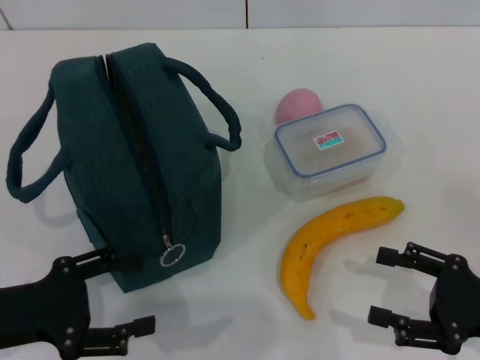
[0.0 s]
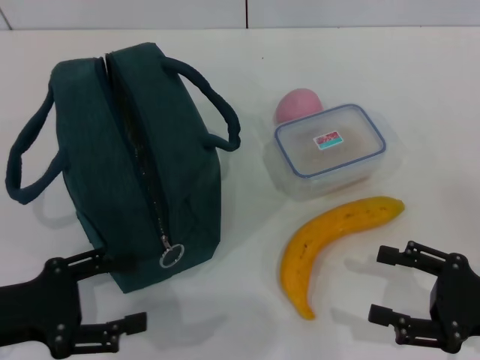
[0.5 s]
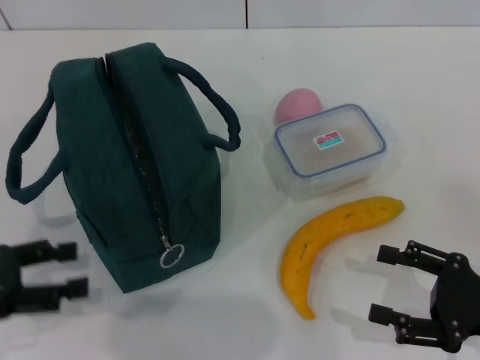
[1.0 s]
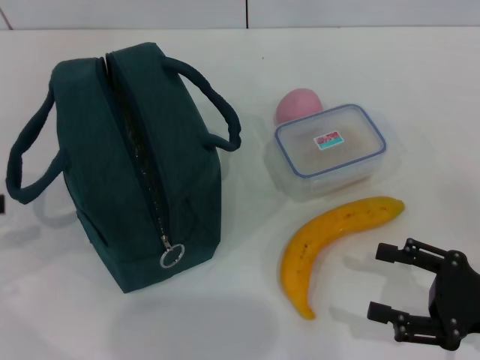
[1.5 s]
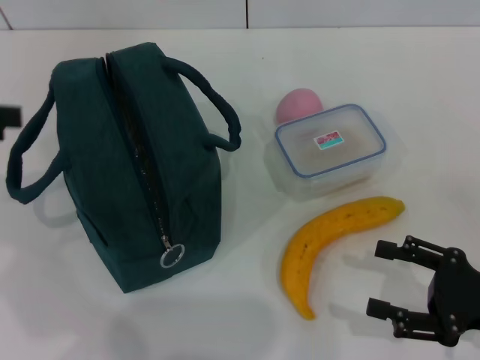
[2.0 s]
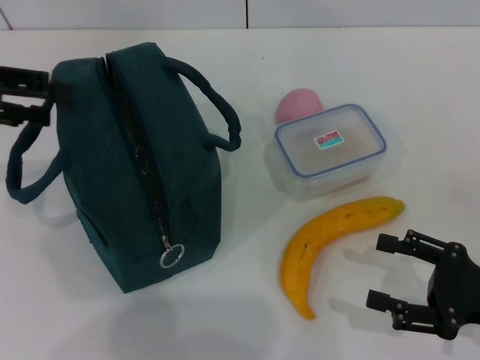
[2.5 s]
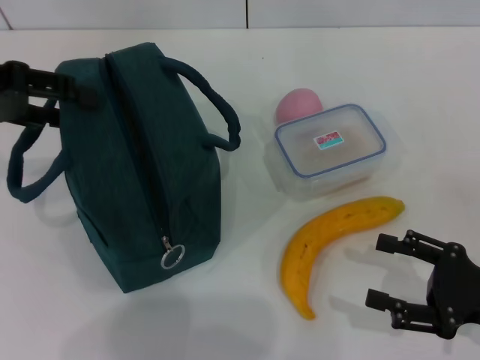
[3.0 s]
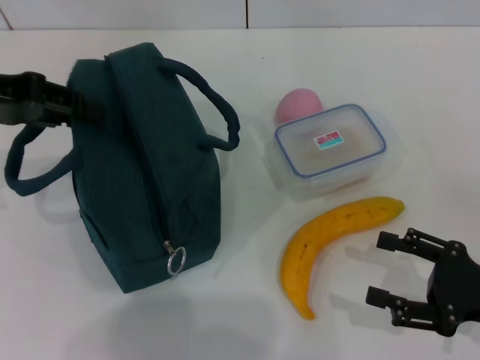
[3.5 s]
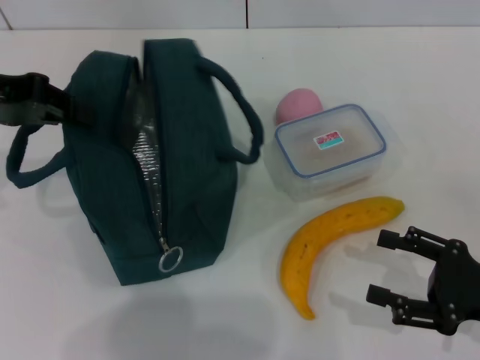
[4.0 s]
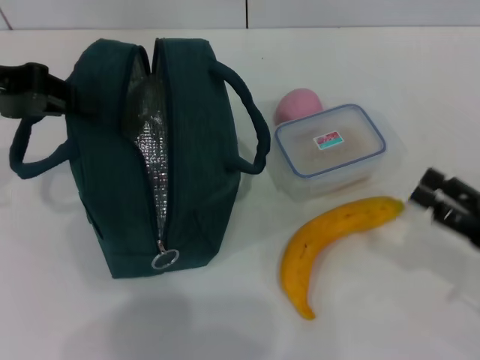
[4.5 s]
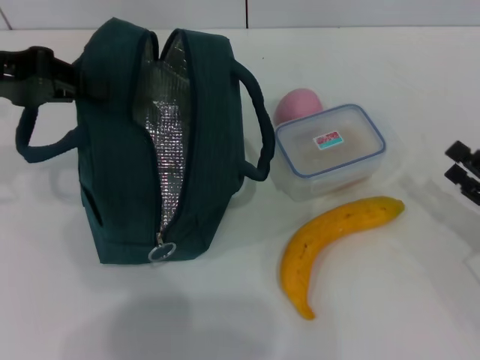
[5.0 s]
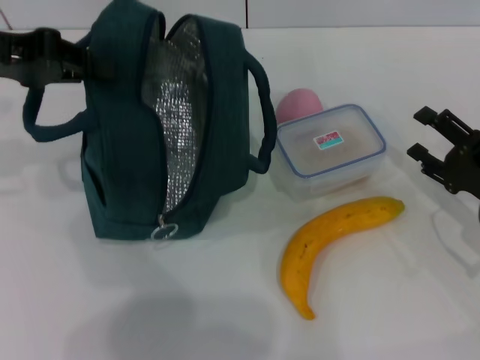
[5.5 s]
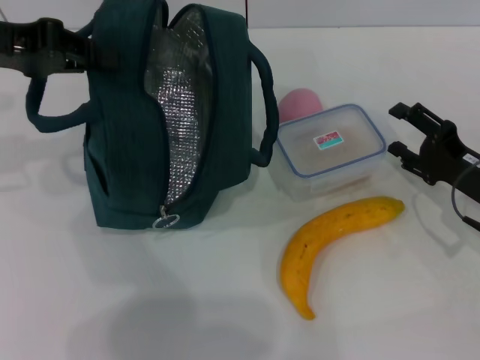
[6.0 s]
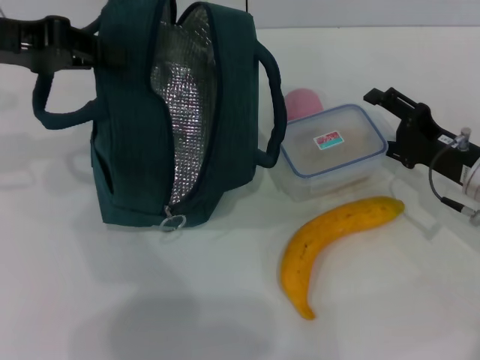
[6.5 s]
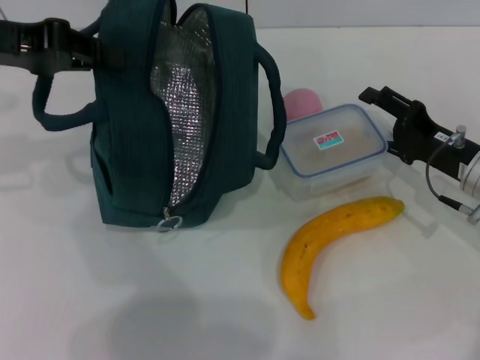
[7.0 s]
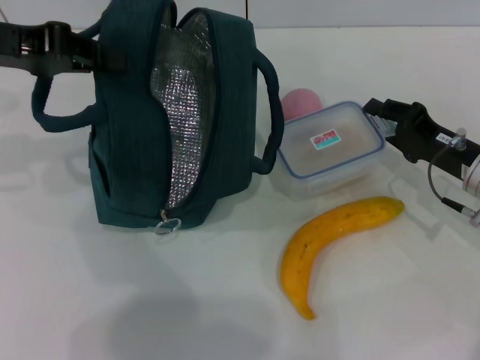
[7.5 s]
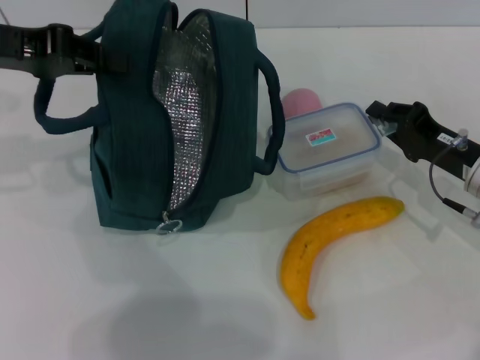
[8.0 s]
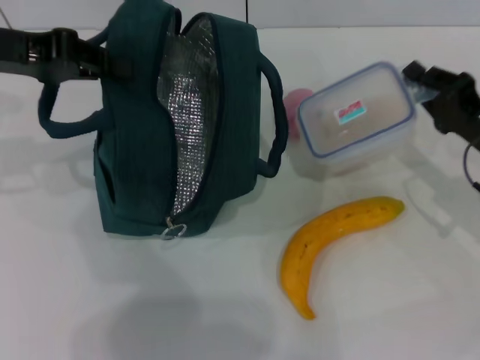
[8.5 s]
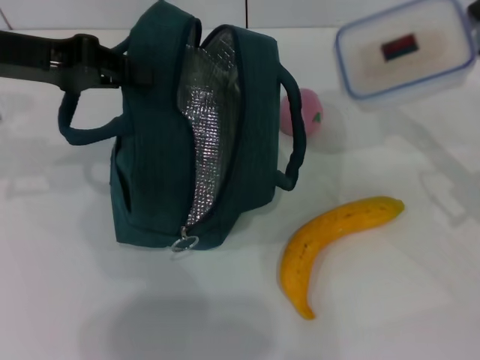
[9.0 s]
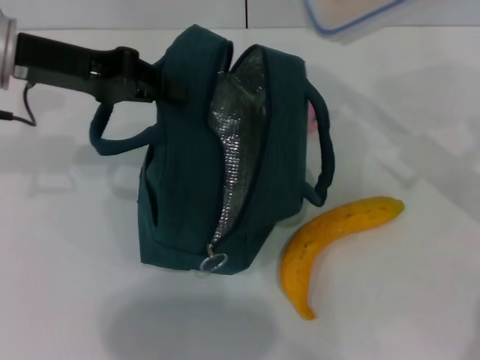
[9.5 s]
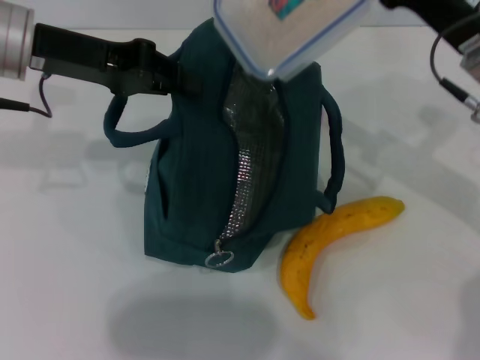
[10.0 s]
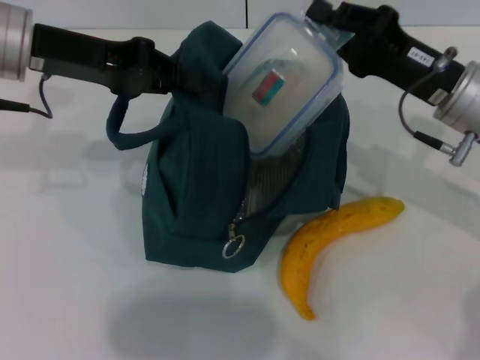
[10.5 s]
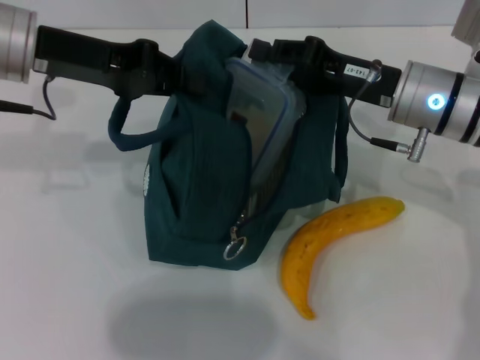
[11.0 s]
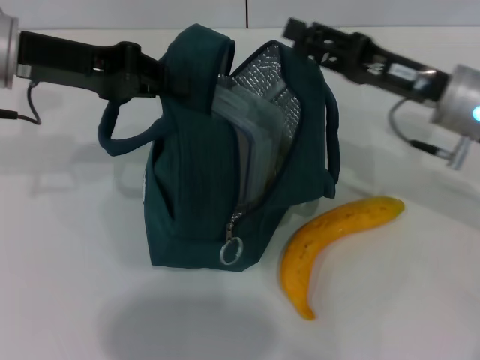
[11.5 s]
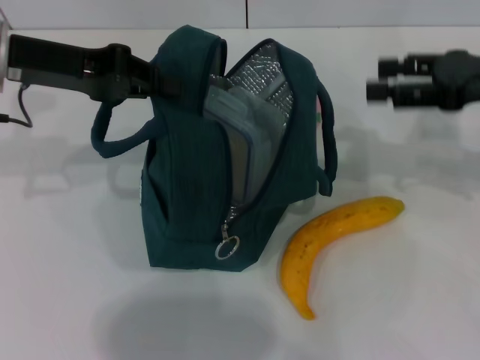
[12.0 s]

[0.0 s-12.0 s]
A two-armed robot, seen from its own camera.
Step, 0.0 to 4.0 s: Hold the lunch bag with your left hand.
Step, 4.5 to 8.0 s: Pick up the lunch box with your right hand.
Step, 8.5 to 11.0 s: Place the lunch box into the lunch bag with your right hand.
0.0 to 2.0 s: The left gripper moves upward, forward and to the left, approximately 20 cm.
2.0 to 4.0 s: The left gripper heads to the right and forward, covering about 10 cm, and closes its fingers.
4.0 to 6.0 s: The right gripper shifts roughly 10 cm forward.
6.0 to 8.0 s: The right gripper closes its fingers.
8.0 to 10.0 s: The right gripper goes approximately 10 cm upward; the left gripper goes roughly 5 cm to the right.
10.0 to 12.0 s: The right gripper is displaced to the right by about 5 cm, and opens.

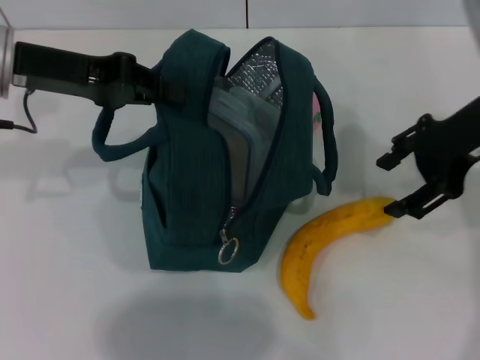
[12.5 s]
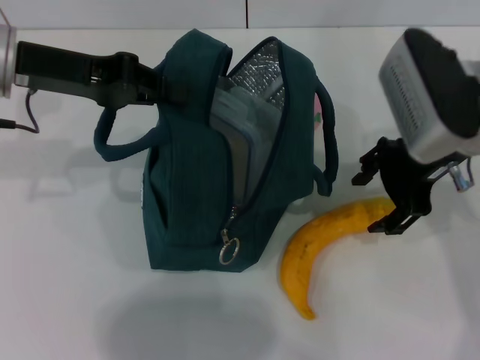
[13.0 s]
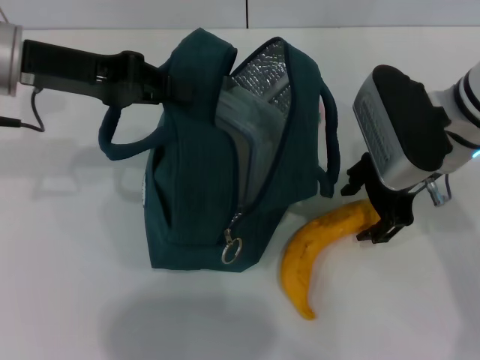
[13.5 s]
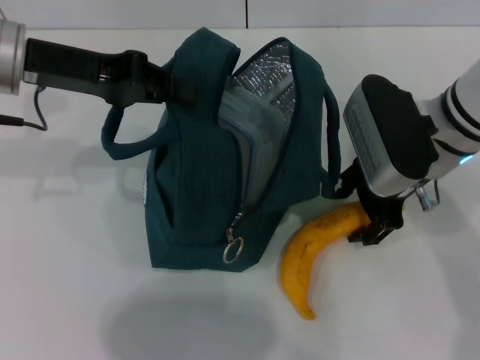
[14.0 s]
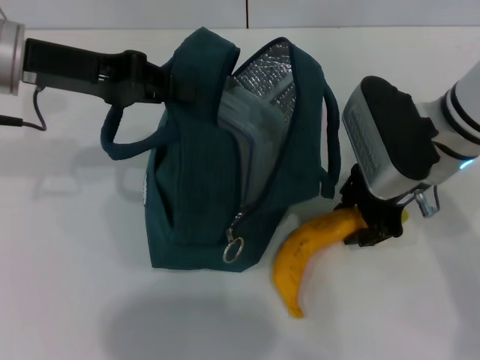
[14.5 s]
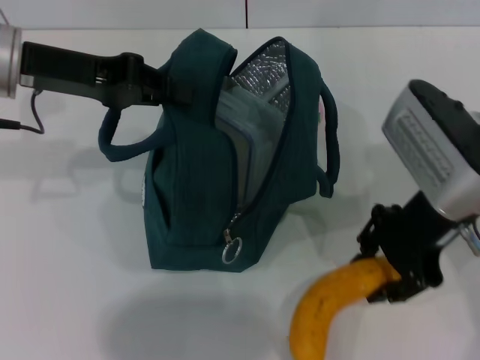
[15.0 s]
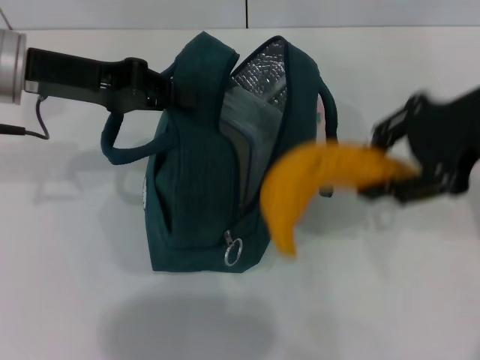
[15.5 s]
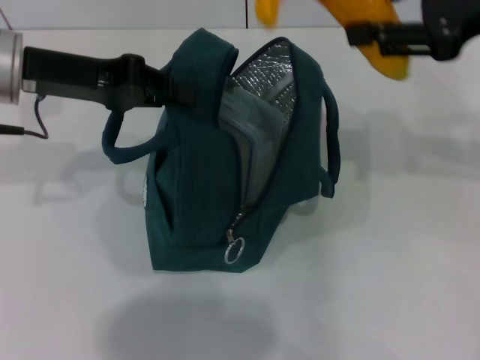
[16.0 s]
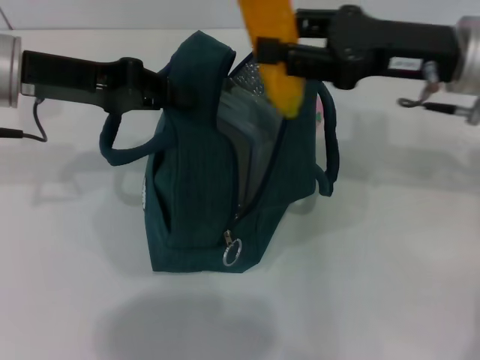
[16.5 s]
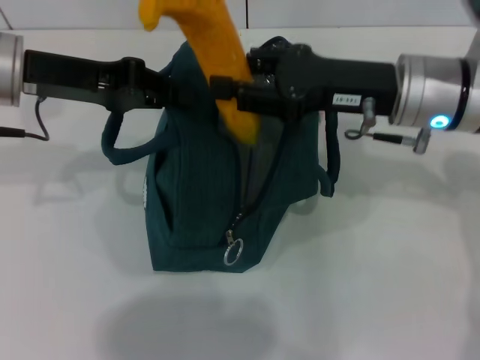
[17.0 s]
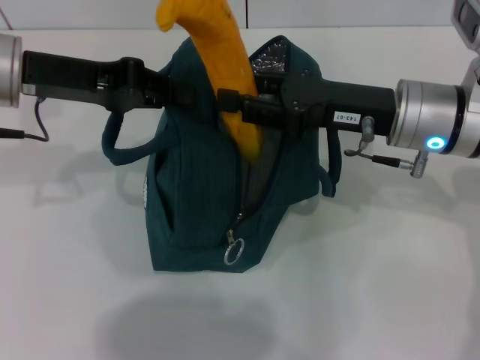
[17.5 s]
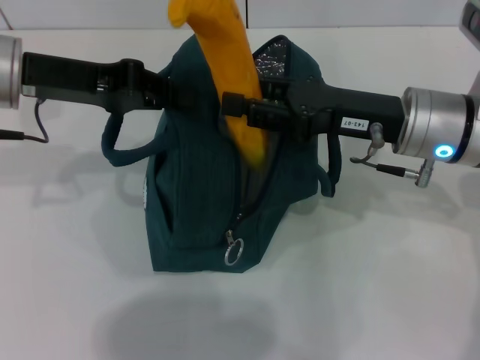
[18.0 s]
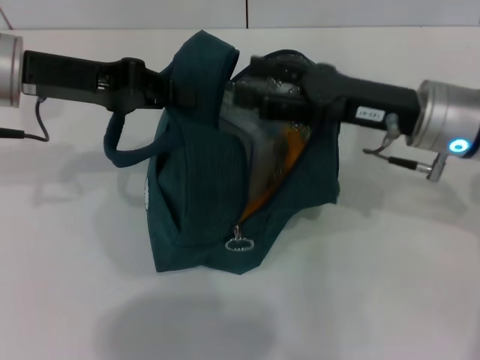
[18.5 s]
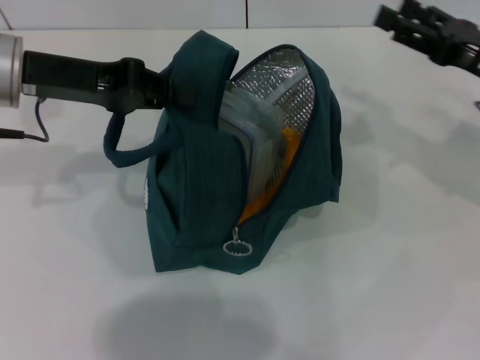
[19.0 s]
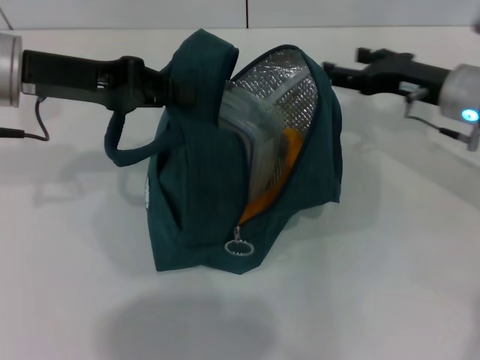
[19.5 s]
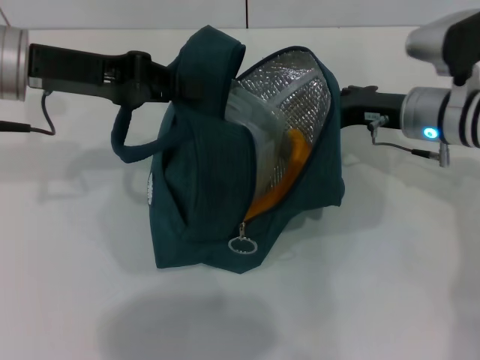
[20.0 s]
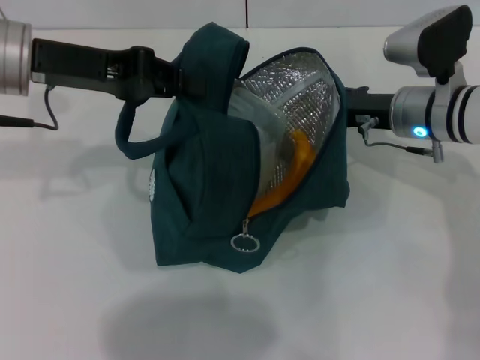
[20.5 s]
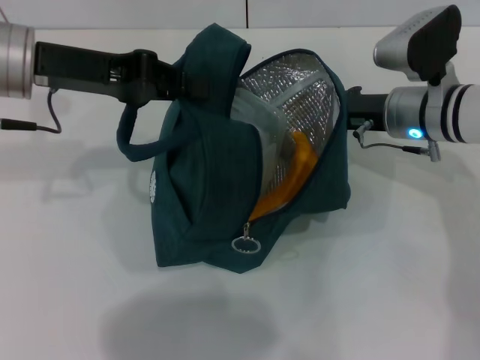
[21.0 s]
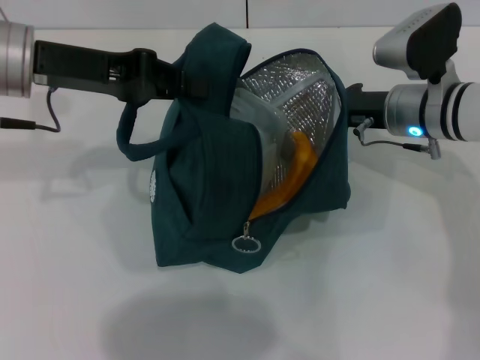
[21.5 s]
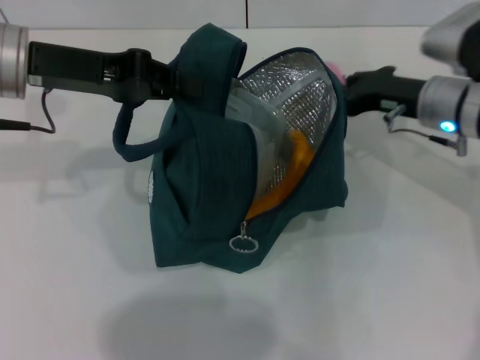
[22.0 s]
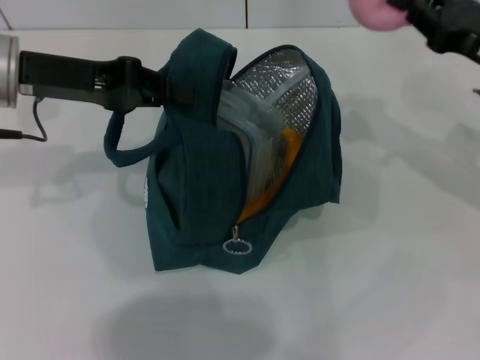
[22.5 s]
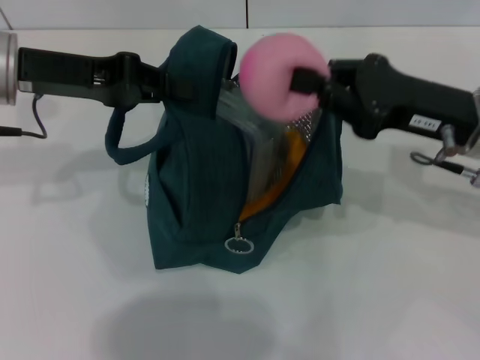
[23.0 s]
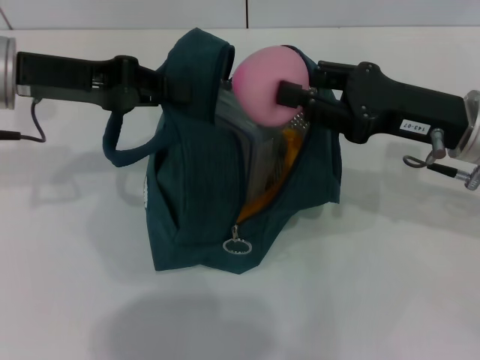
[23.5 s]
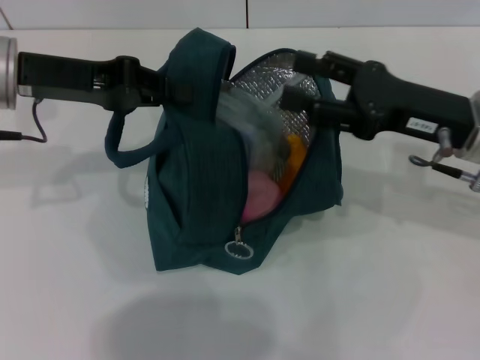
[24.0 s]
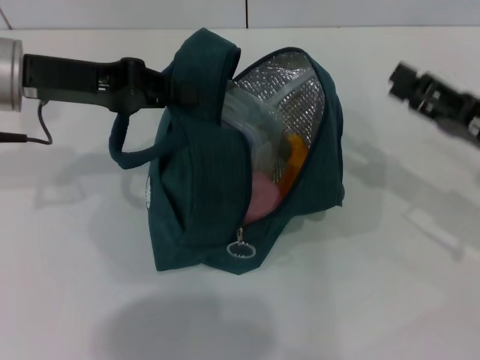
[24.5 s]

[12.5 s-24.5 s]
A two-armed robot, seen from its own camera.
Step, 12.5 to 14.0 s: Take the banana with your right hand.
Step, 14.5 to 18.5 s: Put the banana into the lunch bag with your right hand.
Step, 19.0 to 21.0 s: Grab the peach with your right hand.
12.5 to 14.5 s: The right gripper shifts some 10 cm to the left and downward.
14.5 to 16.5 s: The right gripper shifts roughly 5 cm upward.
16.5 to 18.5 s: The right gripper goes roughly 5 cm downward, and opens its fingers.
18.5 to 20.5 s: The right gripper goes approximately 10 cm forward and downward, and goes to the right and returns, approximately 10 cm each way.
20.5 to 22.5 s: The right gripper shifts approximately 10 cm to the right, upward and backward, and closes up.
22.5 to 24.5 s: The right gripper travels downward and backward by about 10 cm, goes to the left and returns, approximately 5 cm each way, and opens.

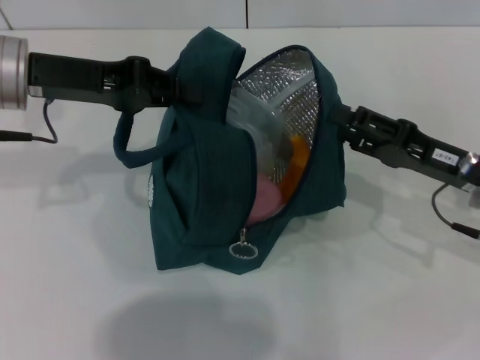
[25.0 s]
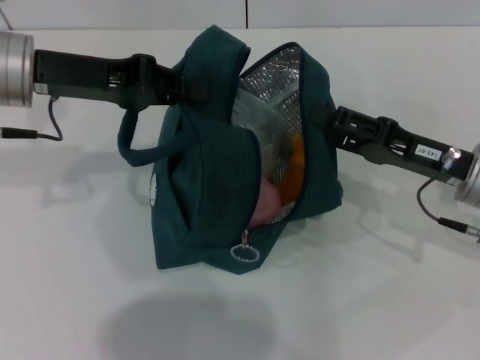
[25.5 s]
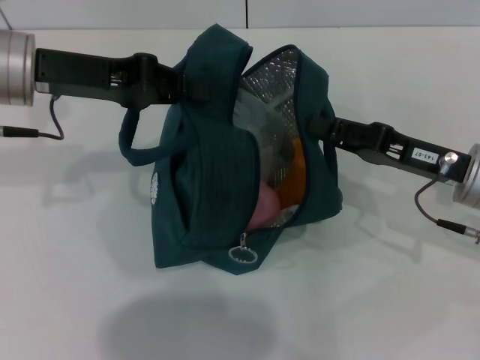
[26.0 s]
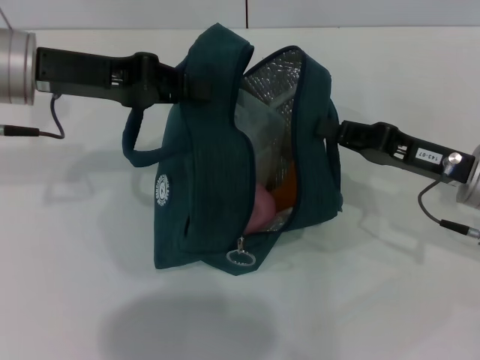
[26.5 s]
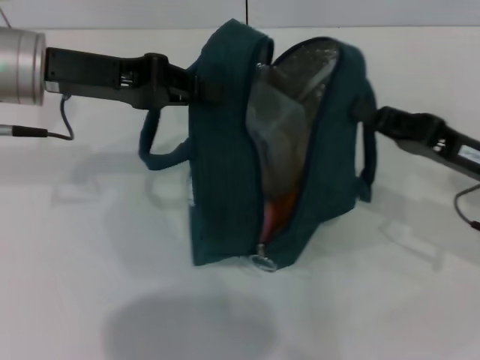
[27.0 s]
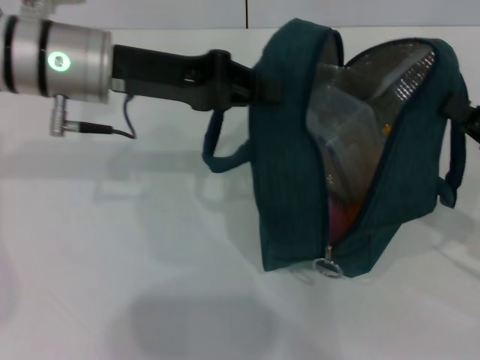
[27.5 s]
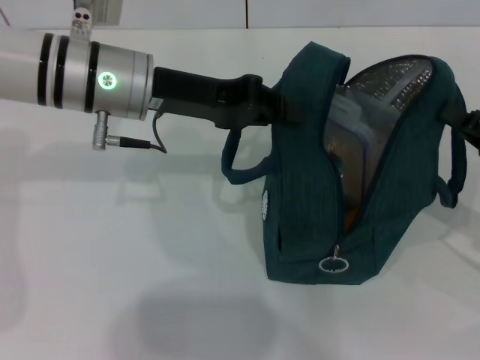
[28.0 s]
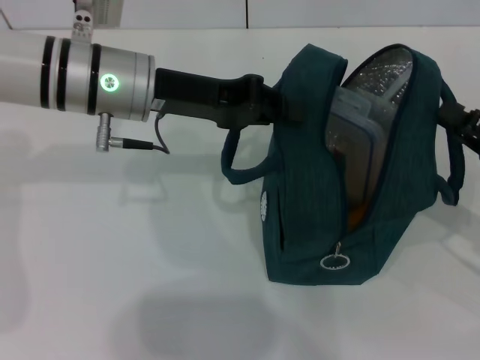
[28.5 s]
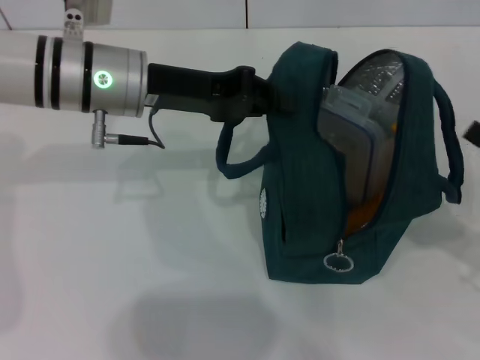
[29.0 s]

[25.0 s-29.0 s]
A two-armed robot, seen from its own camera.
Step, 25.0 to 28.5 s: Hold the lunch bag with your right hand.
25.0 to 27.0 s: The right gripper closes.
27.0 to 29.0 s: The left gripper heads to the right, covering about 5 cm, while the right gripper travels to the right and backward by approximately 10 cm, and opens.
